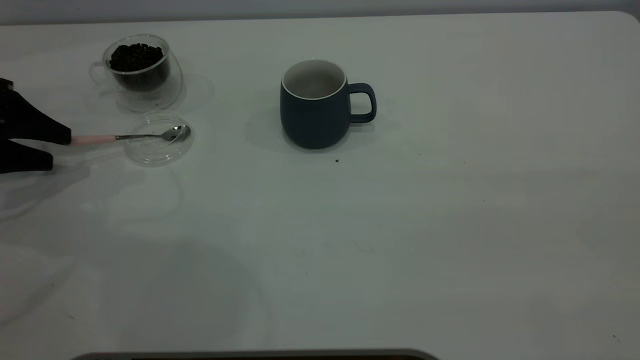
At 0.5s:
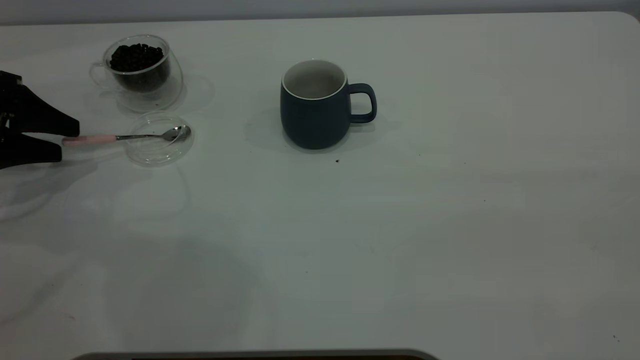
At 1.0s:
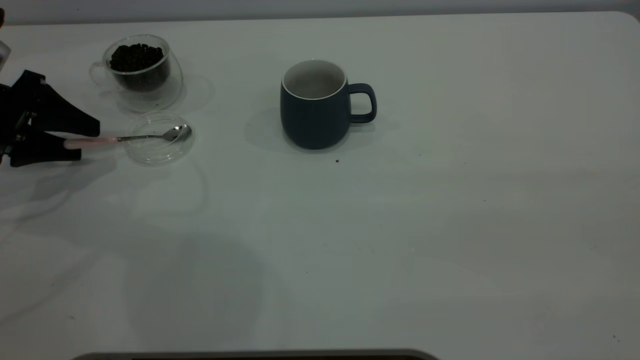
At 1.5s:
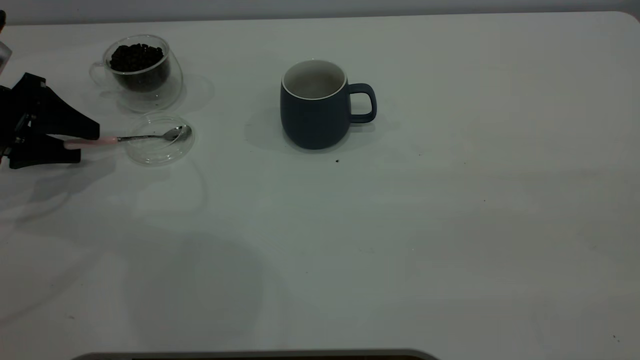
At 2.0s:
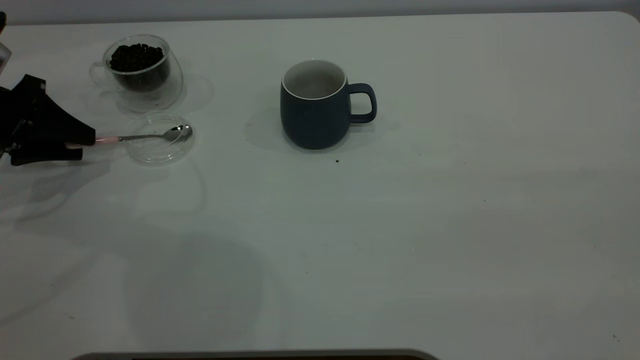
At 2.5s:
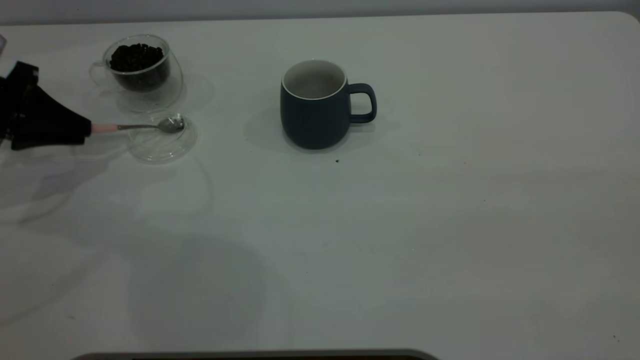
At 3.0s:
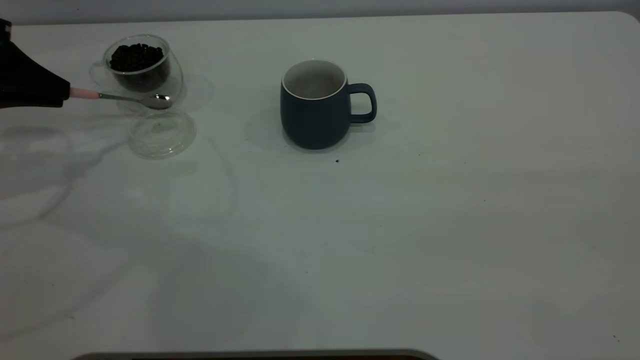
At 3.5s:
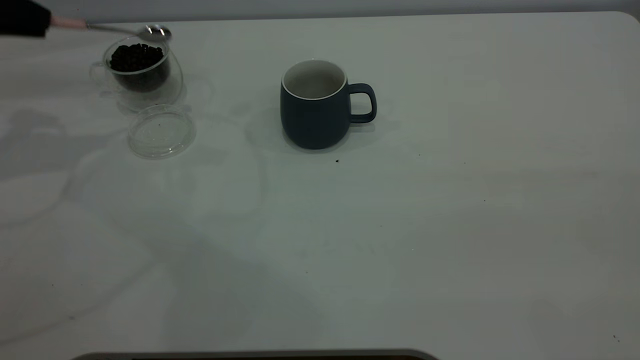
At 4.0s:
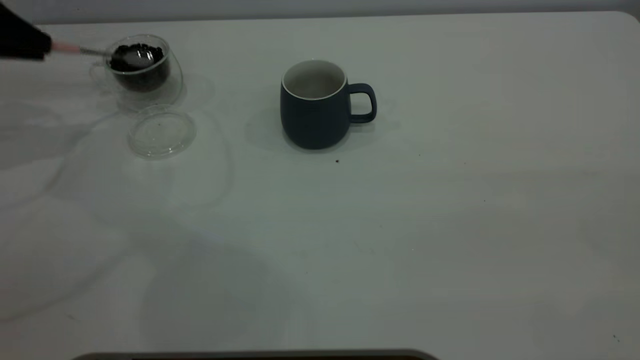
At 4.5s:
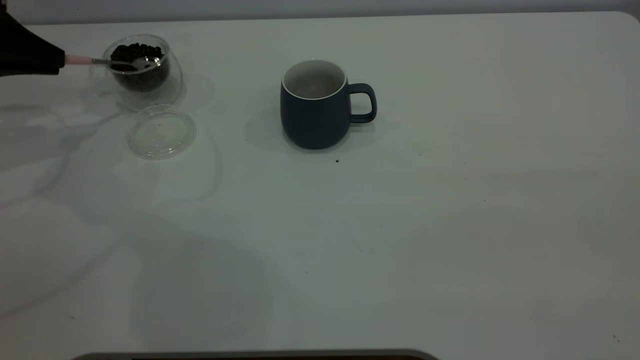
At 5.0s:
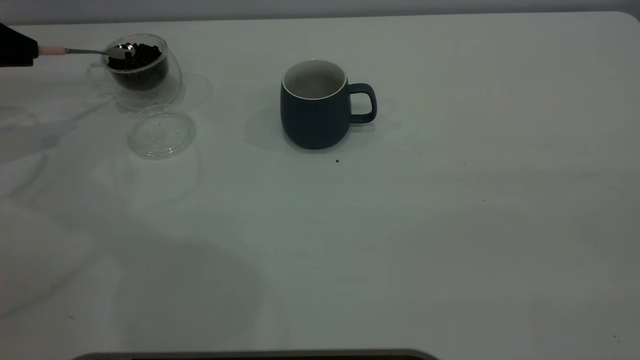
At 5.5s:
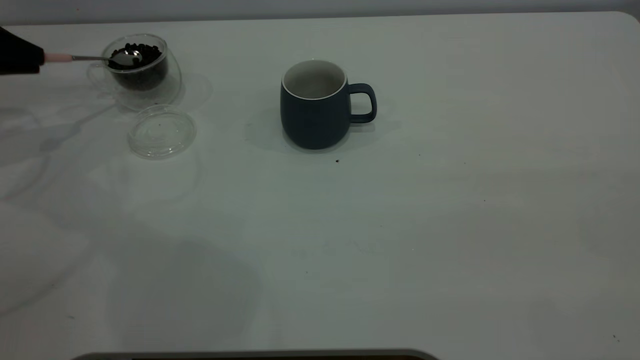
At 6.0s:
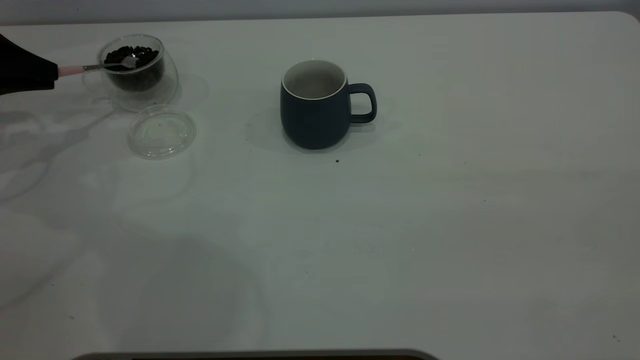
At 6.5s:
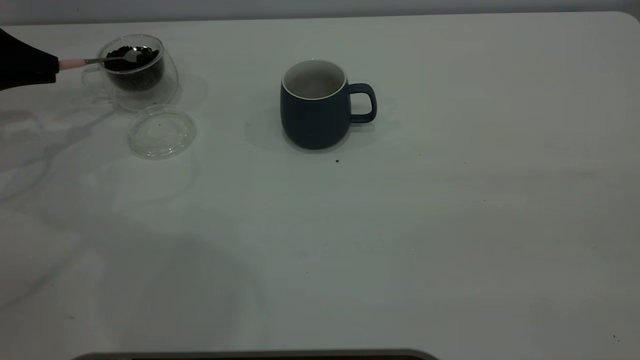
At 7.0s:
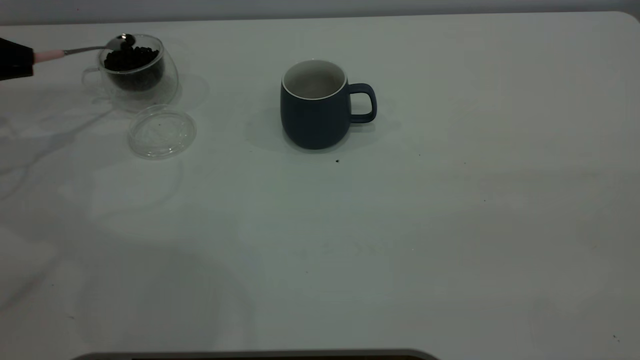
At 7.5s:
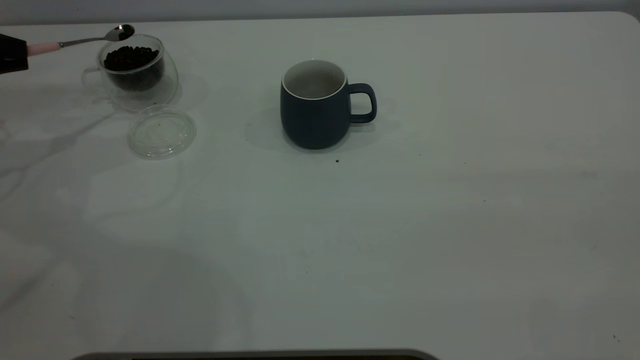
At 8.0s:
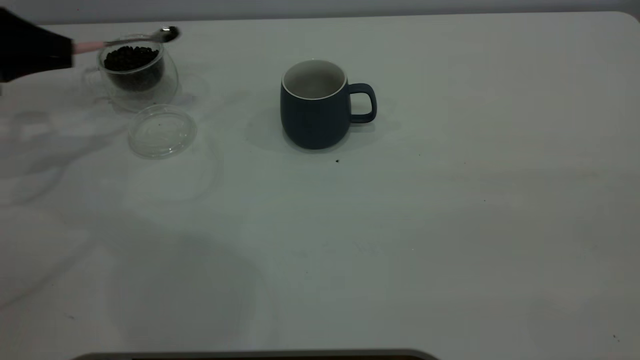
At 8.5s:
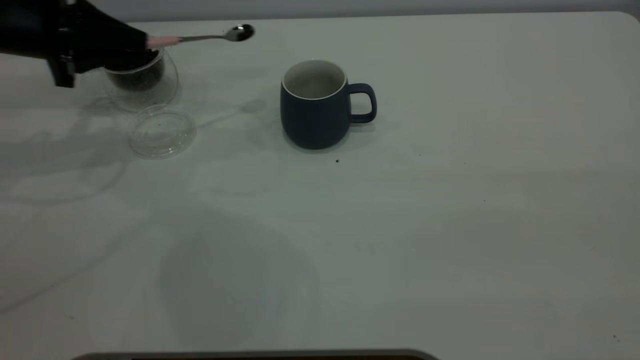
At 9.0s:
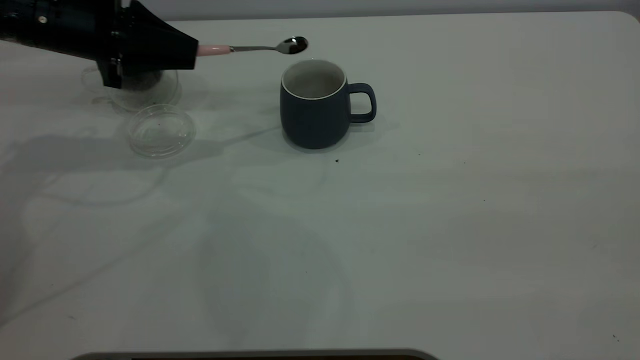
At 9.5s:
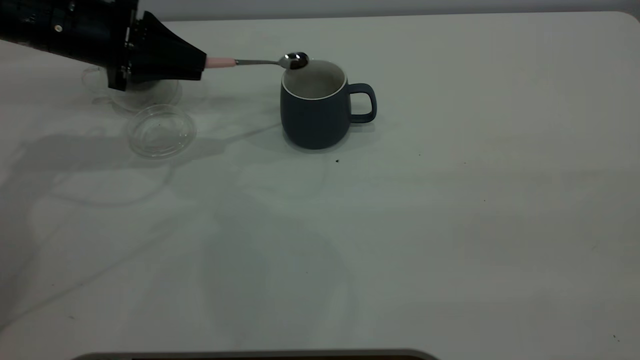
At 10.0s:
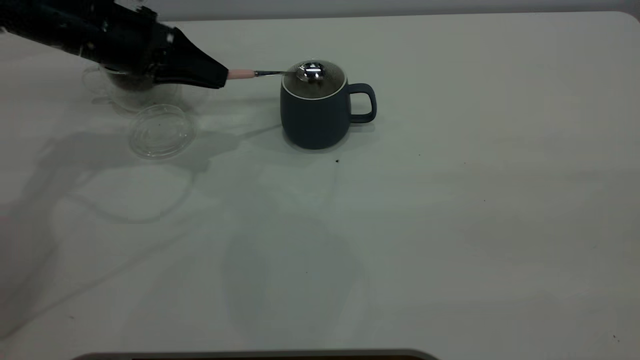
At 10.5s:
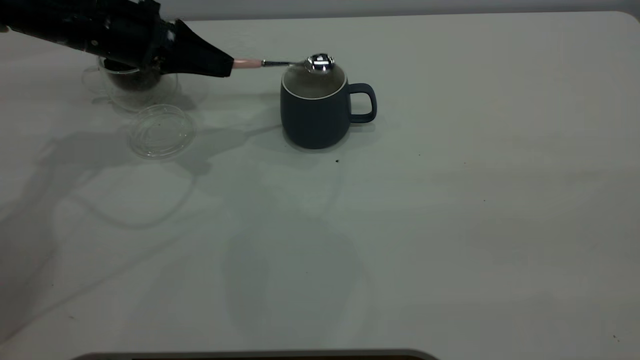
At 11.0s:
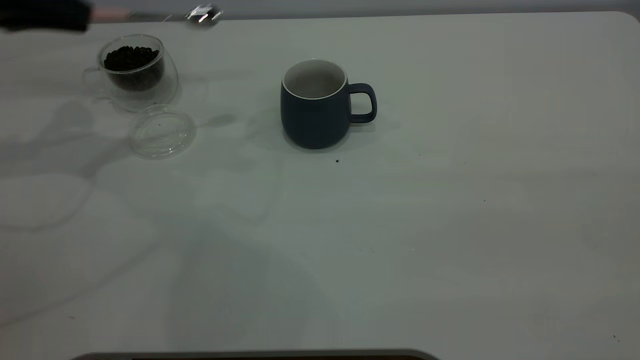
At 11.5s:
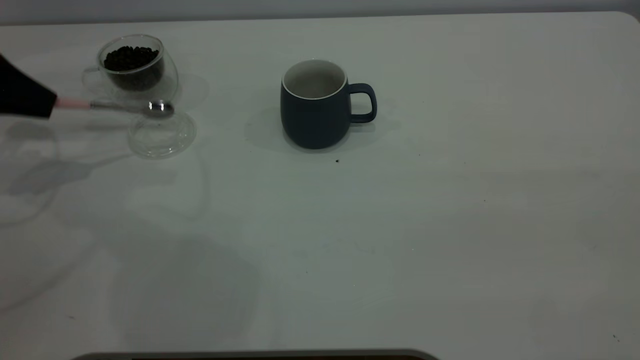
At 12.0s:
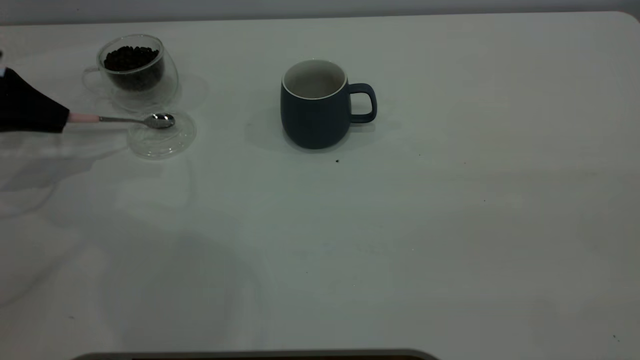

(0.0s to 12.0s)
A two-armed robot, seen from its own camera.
Task of the whole recording: the right gripper place the grey cup in the center of the table, the left gripper take the pink spoon from the cup lid and scoop out the coffee beans from the coffee cup and put them into the grey cup, the left gripper put the spoon back into the cup lid.
Step, 0.0s - 3.0s: Pick up the spoon.
Step, 3.5s - 10.5s: Scoop a spoonful of beans into the cup.
0.0s - 2.0s: The left gripper closes.
2.0s - 4.0s: The left gripper shifts about 10 cm upward and forward, and closes.
4.0s - 6.0s: The grippers make only small movements.
6.0s - 8.0s: The grippers make only small movements.
8.0s - 10.0s: The left gripper travels to the right by about 15 cm.
10.0s - 12.0s: The left gripper goes approximately 20 cm to the left.

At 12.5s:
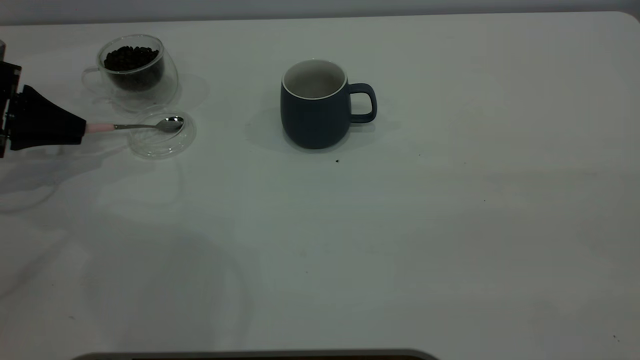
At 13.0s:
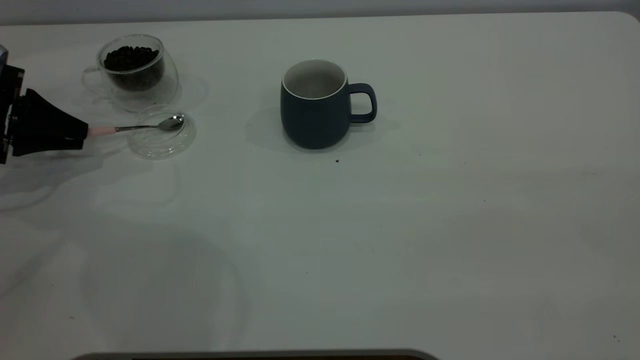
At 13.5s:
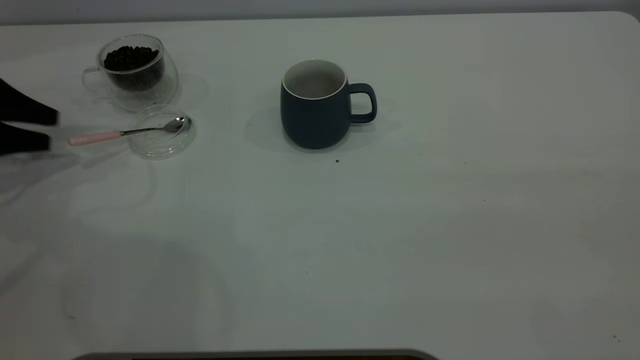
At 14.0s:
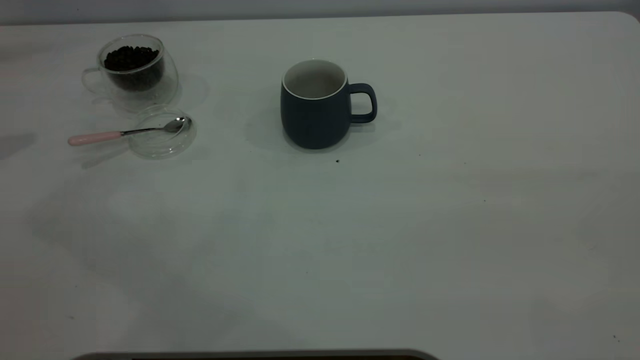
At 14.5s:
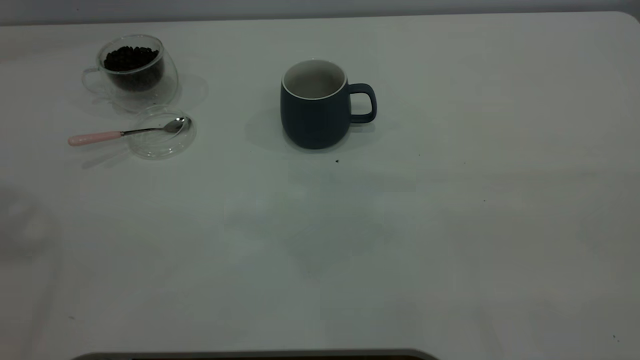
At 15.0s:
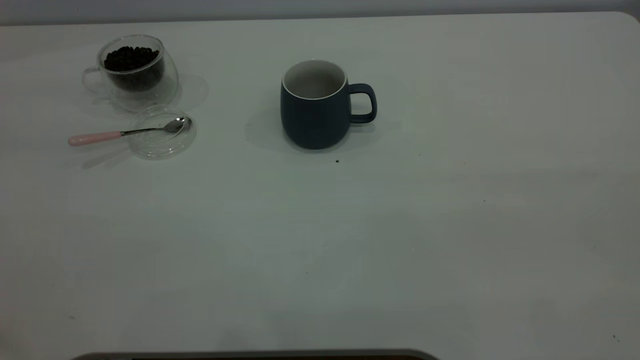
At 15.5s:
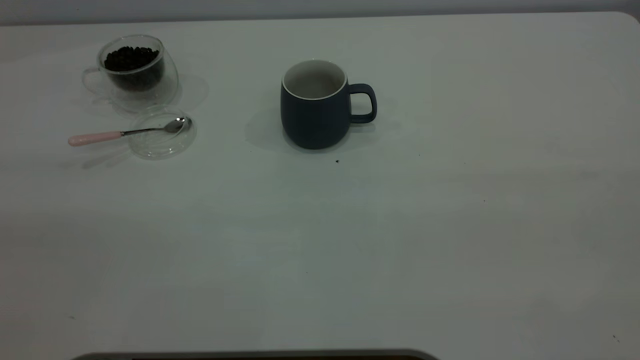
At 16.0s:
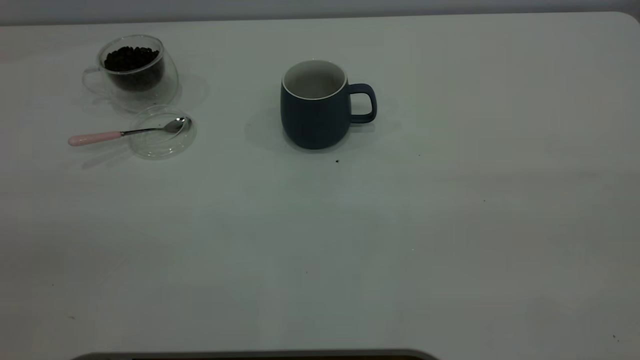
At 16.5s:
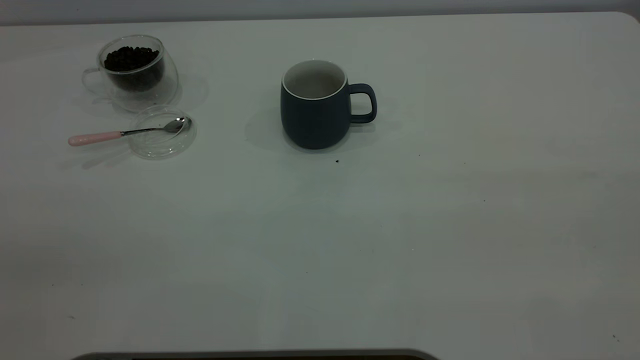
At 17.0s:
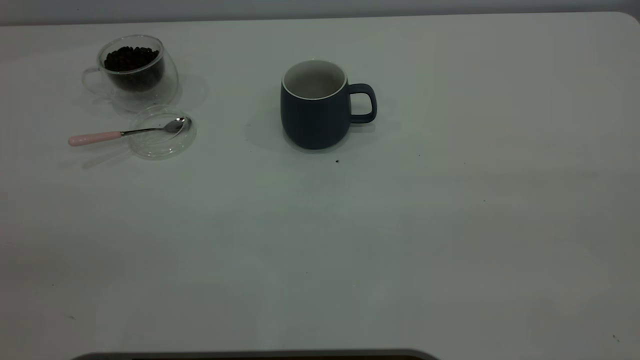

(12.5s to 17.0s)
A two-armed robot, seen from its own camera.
Task of the whole recording: the right gripper place the grey cup in the center of the table, the left gripper take the pink spoon from the cup lid and scoop out the coffee beans from the coffee cup and put them into the grey cup, the left gripper put the spoon back into the cup lid.
12.5s - 14.5s: The left gripper heads upward, covering some 40 cm, and opens up.
